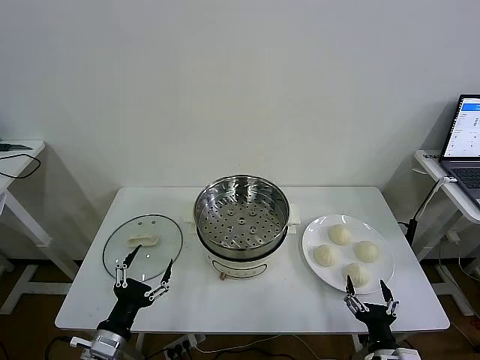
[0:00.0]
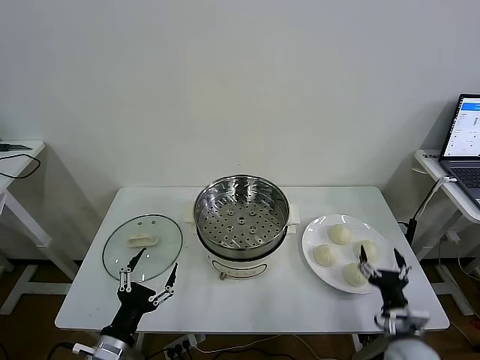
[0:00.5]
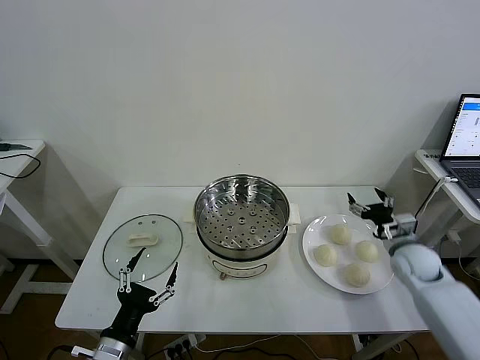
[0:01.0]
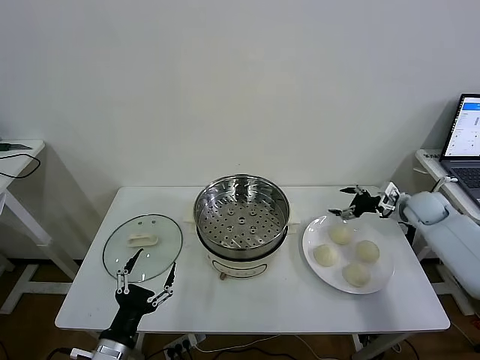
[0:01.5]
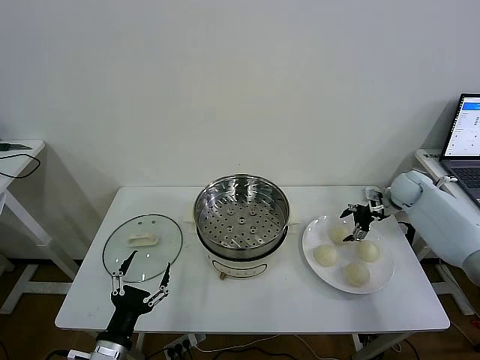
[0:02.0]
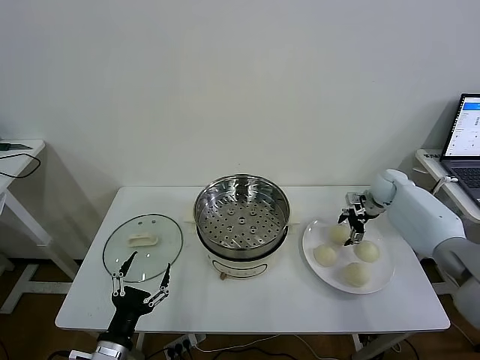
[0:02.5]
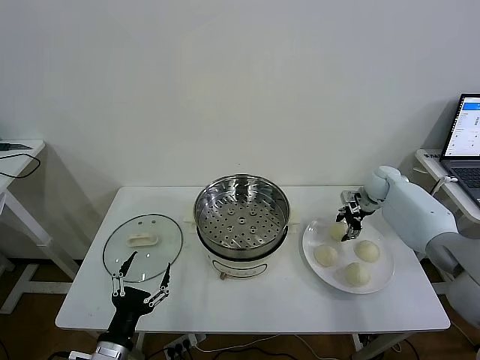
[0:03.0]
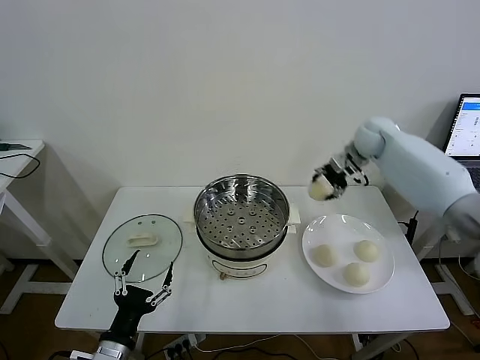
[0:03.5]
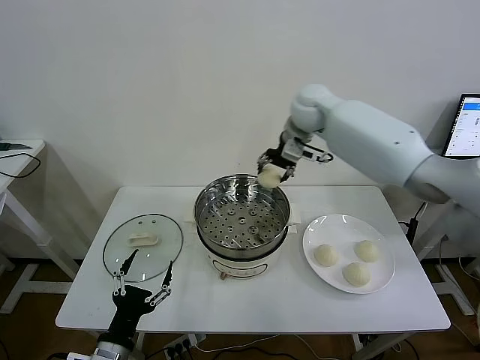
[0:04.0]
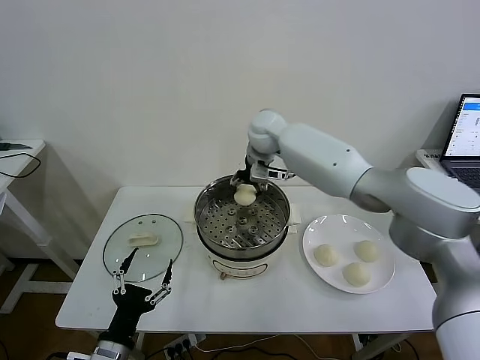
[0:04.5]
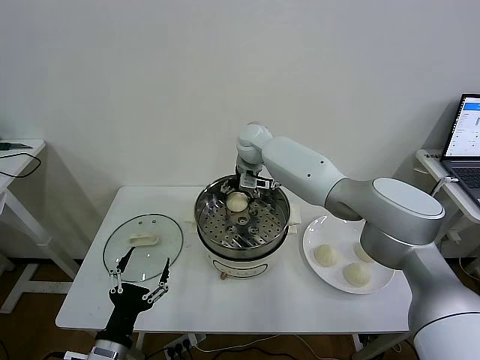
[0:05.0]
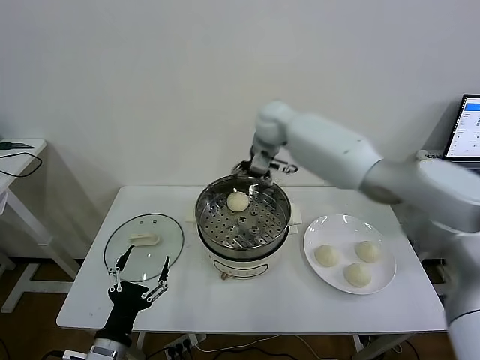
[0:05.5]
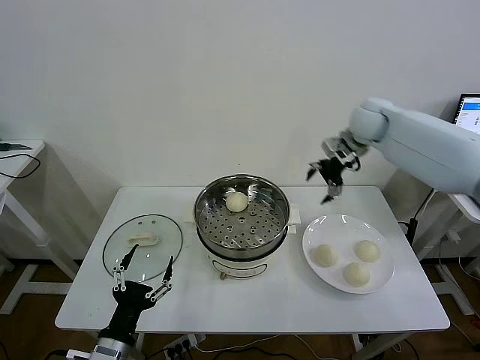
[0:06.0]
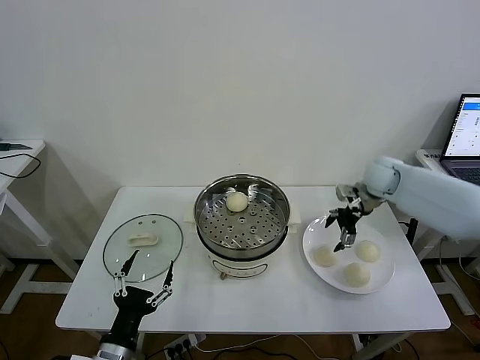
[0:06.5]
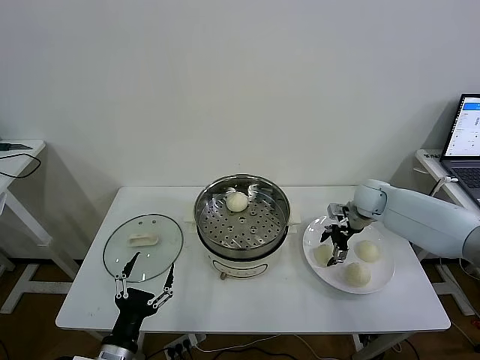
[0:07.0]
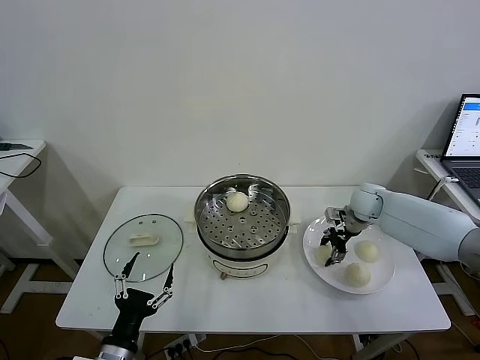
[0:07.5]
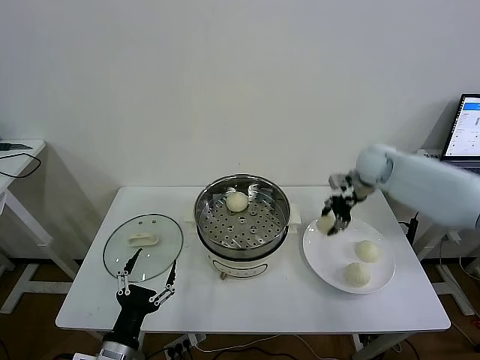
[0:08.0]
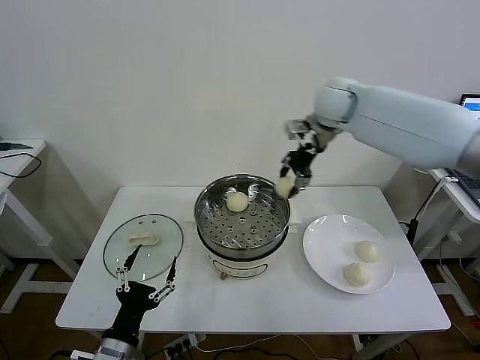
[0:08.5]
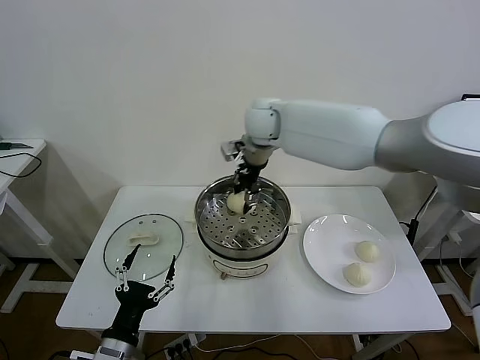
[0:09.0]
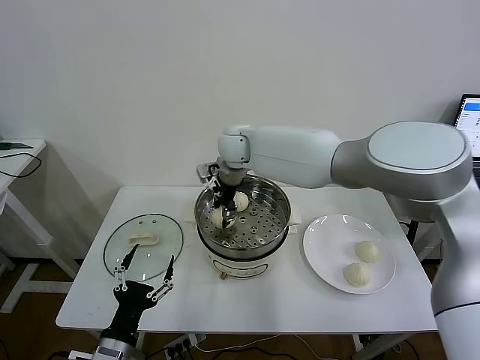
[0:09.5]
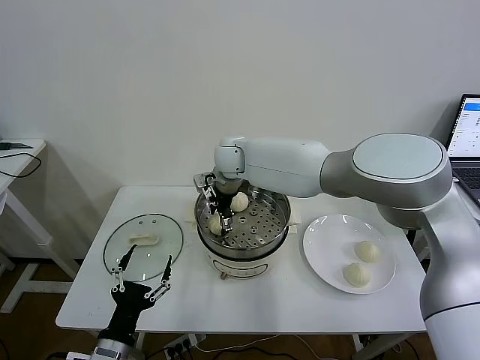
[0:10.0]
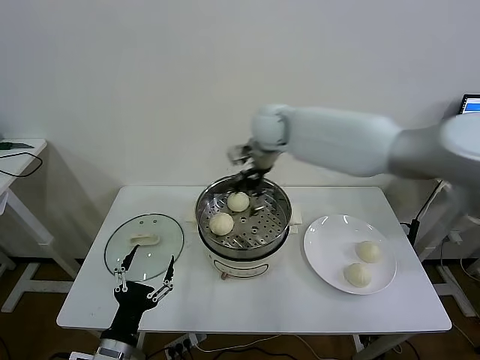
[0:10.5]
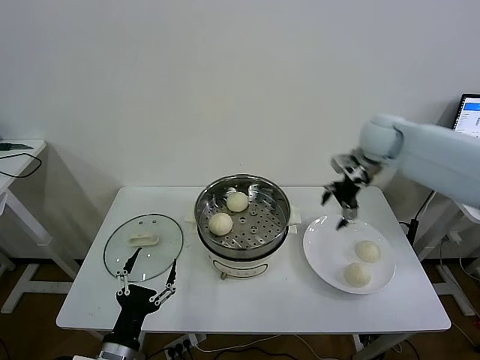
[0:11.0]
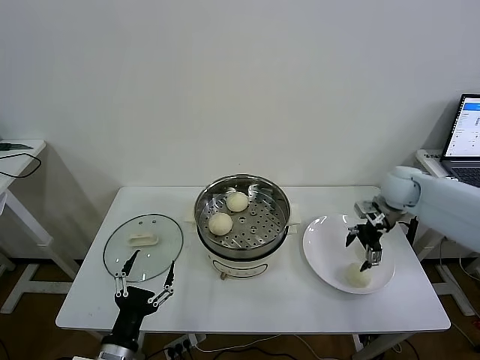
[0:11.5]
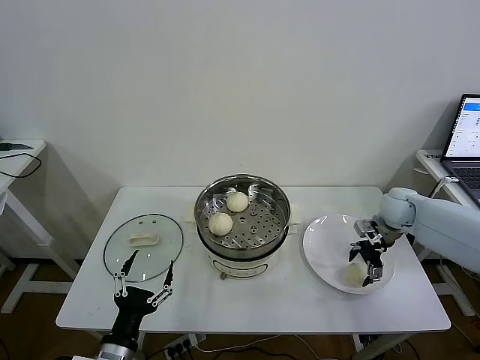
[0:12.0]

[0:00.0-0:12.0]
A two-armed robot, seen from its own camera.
Task of the whole recording: take steamed baozi put them in steamer then cover it.
Step, 0:00.0 to 0:02.5: Grasp the baozi in the plate with right gripper.
Step, 0:03.0 to 0:05.0: Place the baozi on the steamer with right gripper.
Step, 0:05.5 to 0:07.5: Grasp the baozi in the plate with right gripper.
Step, 0:08.0 to 0:10.0: Place the baozi on the steamer with right gripper.
0:02.0 to 0:04.0: The right gripper goes some 40 cm to the left and upward, and closes up.
0:04.0 to 0:06.0: The right gripper heads to the right, covering approximately 20 cm, and opens up.
0:06.0 to 0:08.0: The right gripper moves approximately 20 cm downward and comes back, and closes.
0:08.0 to 0:10.0: The right gripper heads to the left, covering some 35 cm, and opens.
0:10.0 to 0:12.0: The right gripper moves to the right, some 40 cm.

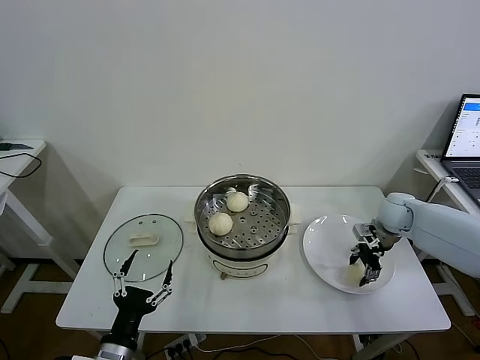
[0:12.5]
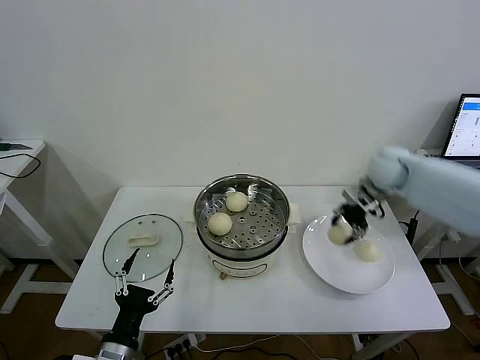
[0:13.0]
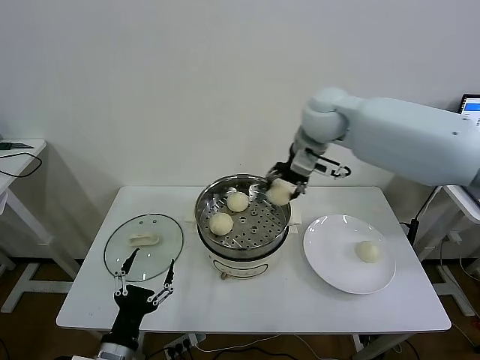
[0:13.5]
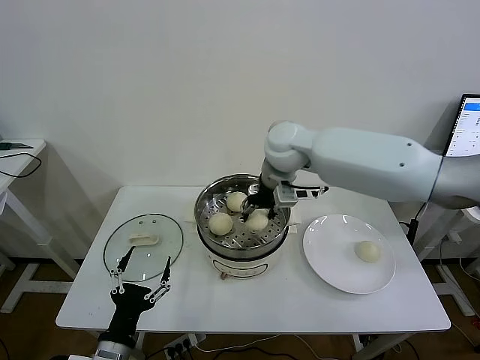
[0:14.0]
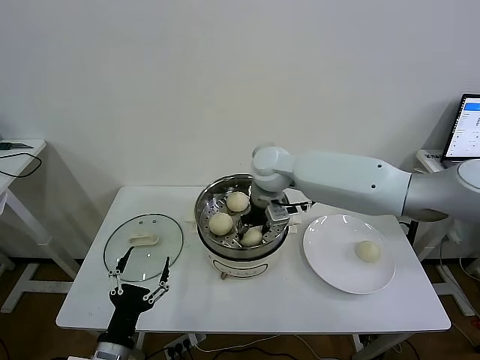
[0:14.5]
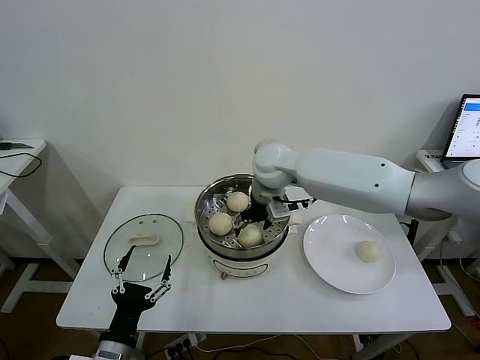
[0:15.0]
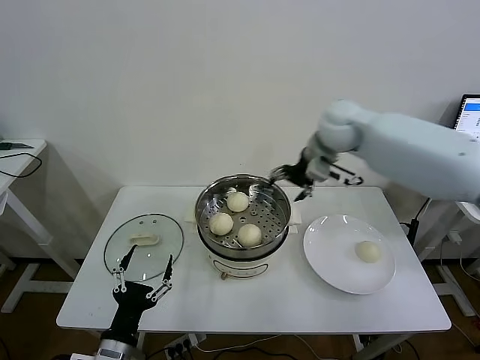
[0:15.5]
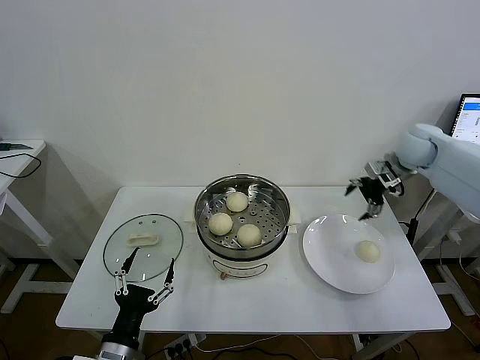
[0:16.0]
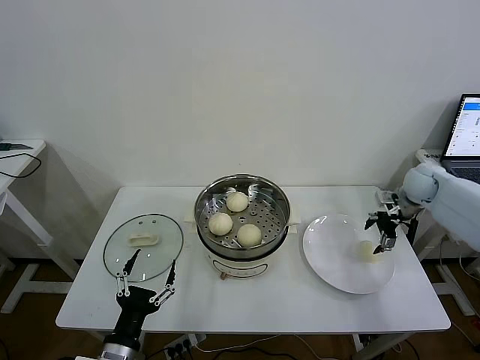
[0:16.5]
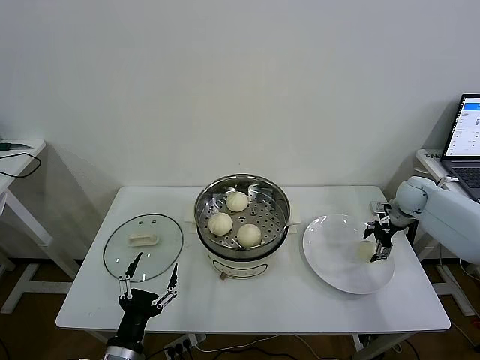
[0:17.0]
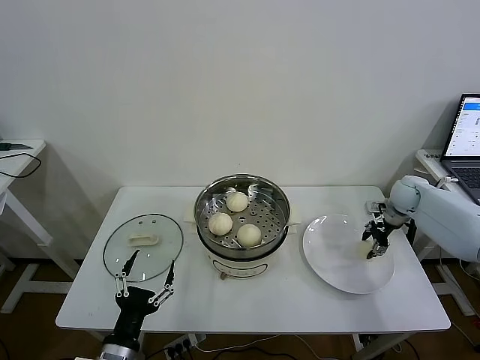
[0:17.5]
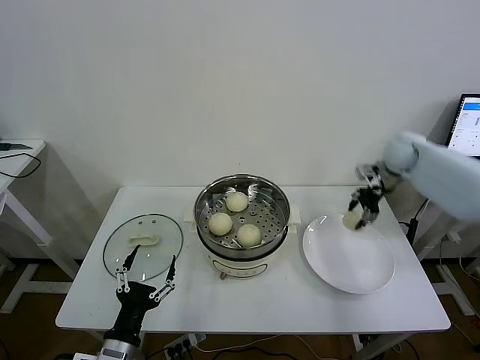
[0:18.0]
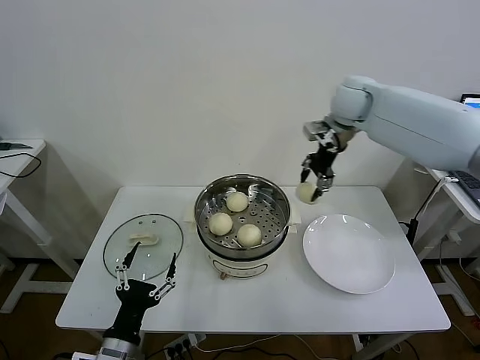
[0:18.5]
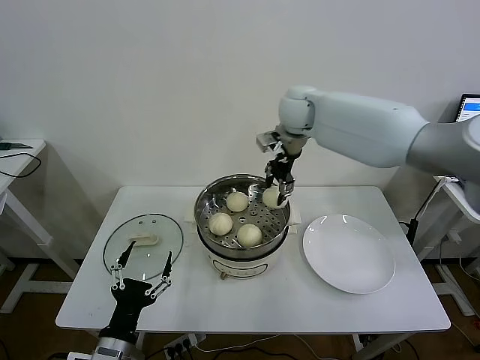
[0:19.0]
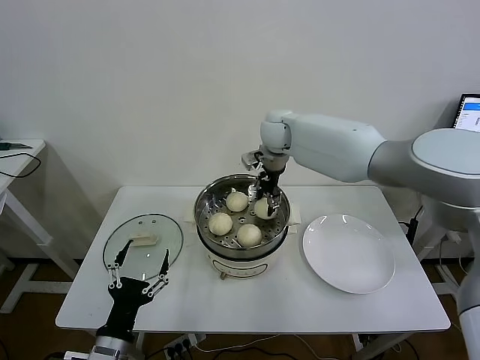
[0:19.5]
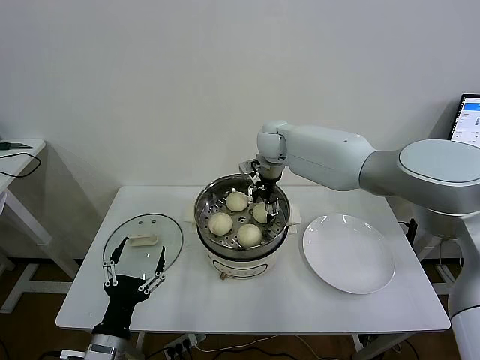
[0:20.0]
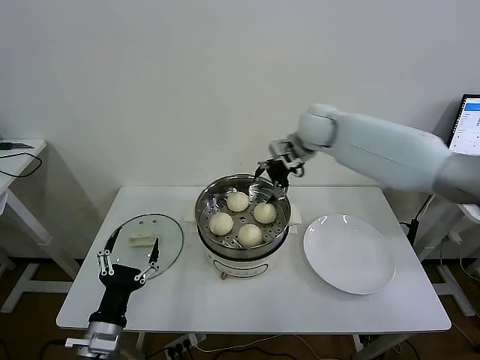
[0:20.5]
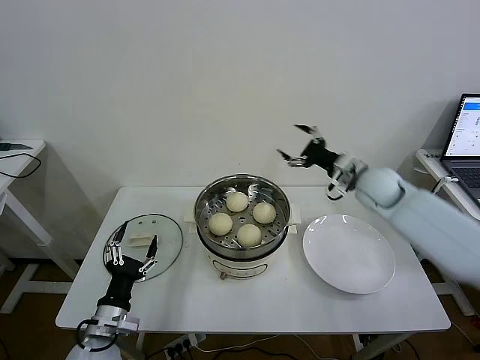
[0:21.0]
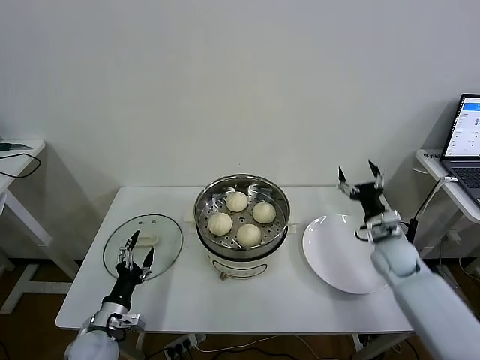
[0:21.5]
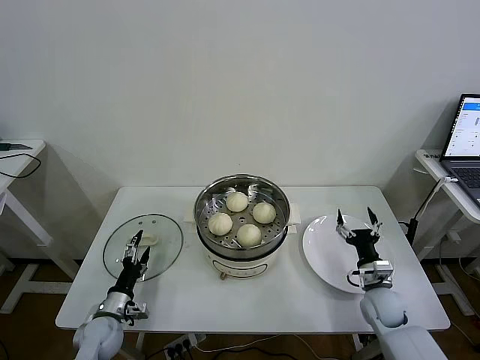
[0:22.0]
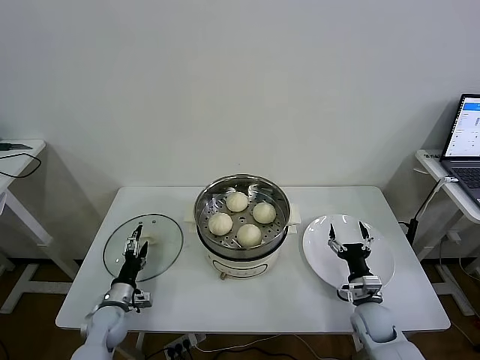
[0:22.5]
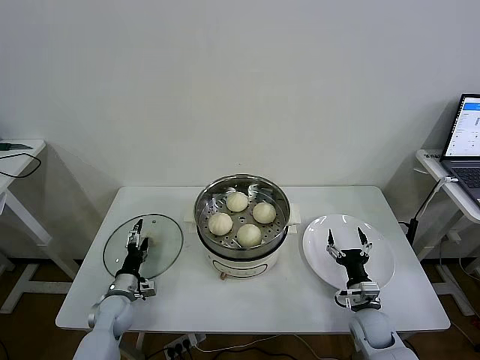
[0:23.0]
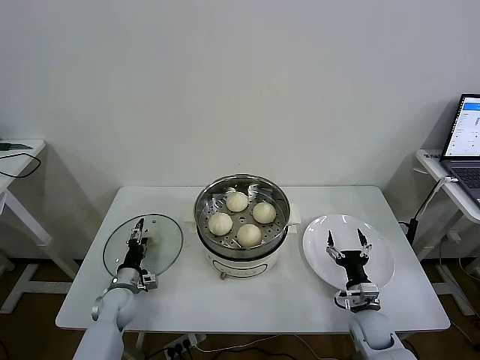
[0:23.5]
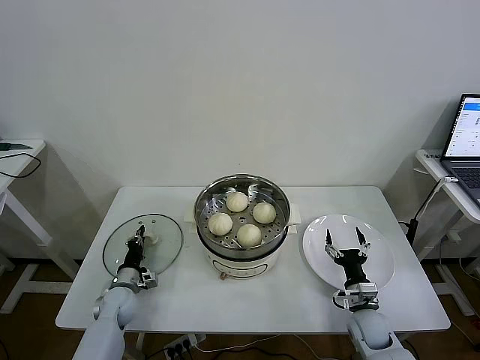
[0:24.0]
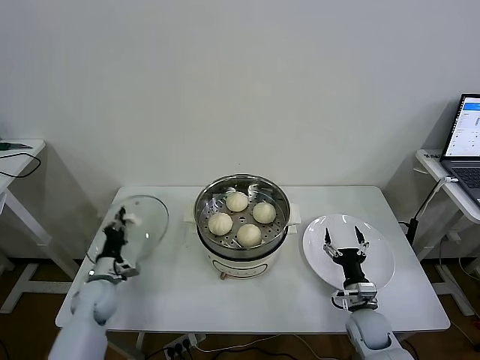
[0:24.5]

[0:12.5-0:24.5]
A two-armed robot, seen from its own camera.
Task of the whole recording: take steamed baozi put them in steamer then cover it.
Step, 0:12.5 to 0:14.5: Place the baozi on the steamer with right gripper.
Step, 0:15.0 to 0:17.0: Grasp the baozi in the plate with right gripper.
Step, 0:17.5 to 0:20.0: Place the baozi on the steamer with right gripper.
Step, 0:20.5 to 0:24.0: Grasp the pot lid with left gripper.
0:12.5 to 0:14.5: The right gripper travels to the left and upward by roughly 35 cm.
0:14.5 to 0:16.5: The right gripper heads to the right, covering approximately 40 cm, and opens up.
0:16.5 to 0:18.5: The right gripper moves to the left and upward, roughly 30 cm, and closes its fingers.
0:18.5 to 0:20.5: The right gripper travels downward by roughly 5 cm, reaches roughly 15 cm to the left, then returns, and opens.
0:20.5 to 0:22.5: The left gripper goes roughly 25 cm downward, forward and to the left; the right gripper goes about 50 cm downward, backward and to the right.
0:22.5 to 0:24.5: The left gripper changes place by about 5 cm, and closes up.

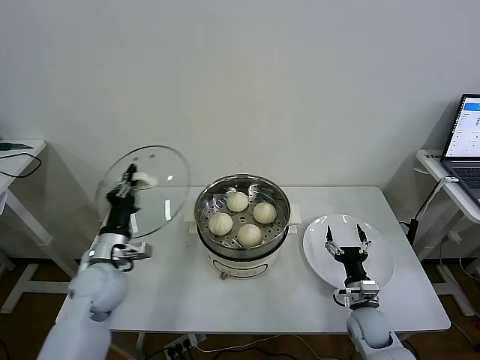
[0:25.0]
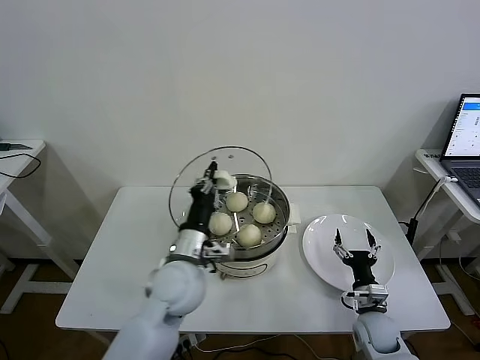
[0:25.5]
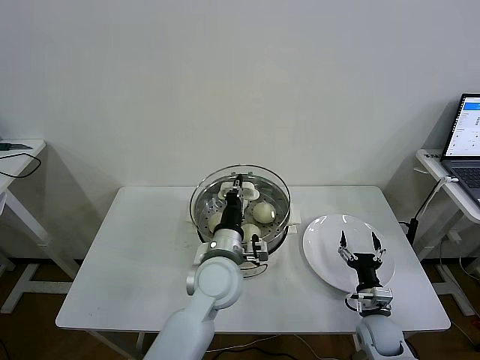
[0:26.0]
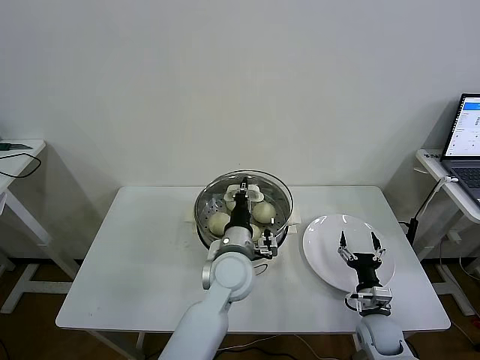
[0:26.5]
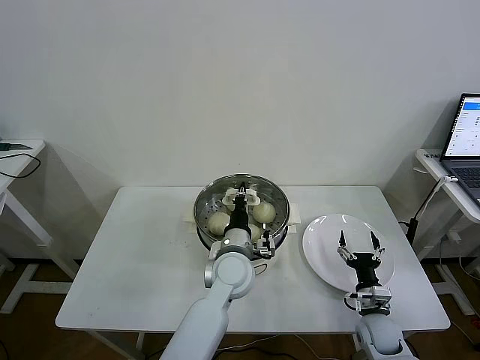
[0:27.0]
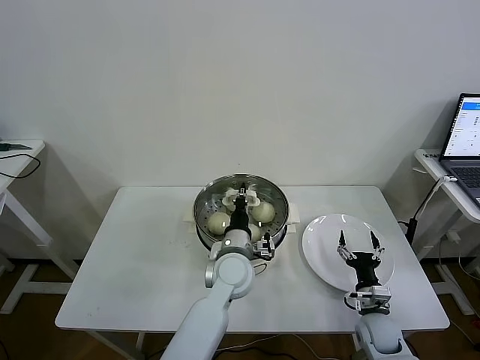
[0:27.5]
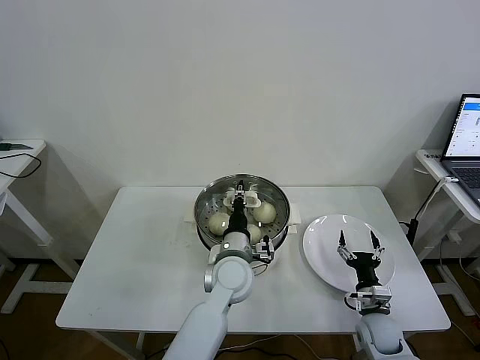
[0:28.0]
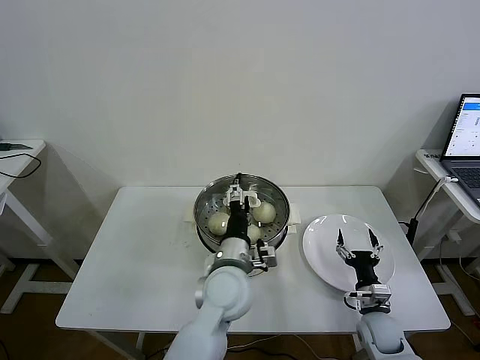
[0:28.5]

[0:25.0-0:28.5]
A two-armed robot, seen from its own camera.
Task of the whole recording: take steamed baozi put them in steamer then cover it.
Step, 0:25.0 to 0:28.0: Place the pot lid on the steamer with left gripper.
0:25.0 to 0:27.0: The left gripper shifts approximately 30 cm to the right.
0:27.0 to 0:28.5: The left gripper moves some 5 cm, and opens up.
